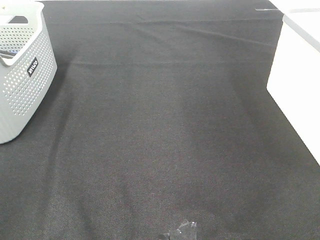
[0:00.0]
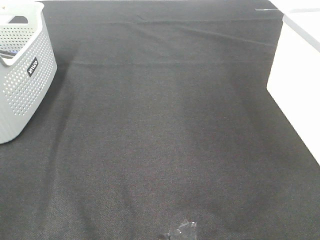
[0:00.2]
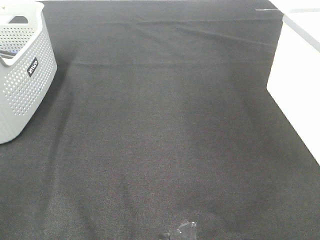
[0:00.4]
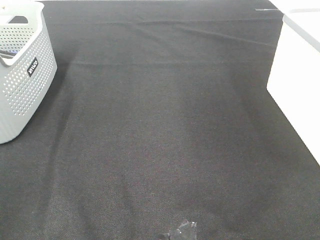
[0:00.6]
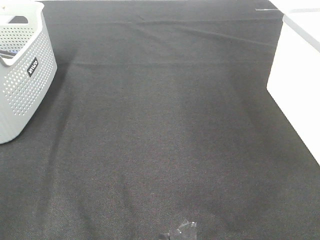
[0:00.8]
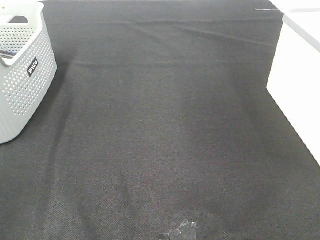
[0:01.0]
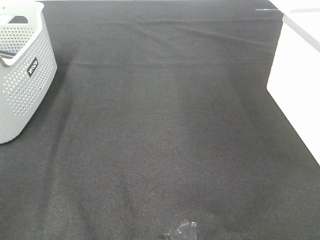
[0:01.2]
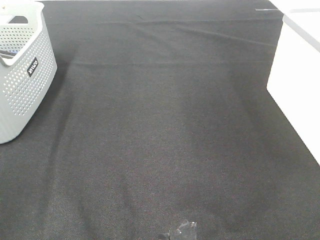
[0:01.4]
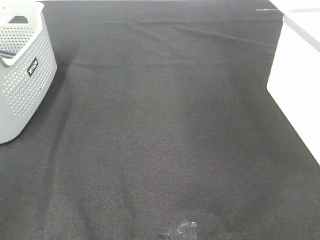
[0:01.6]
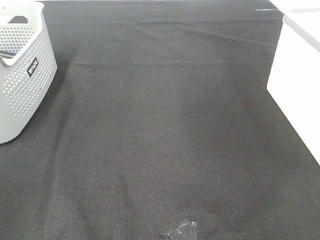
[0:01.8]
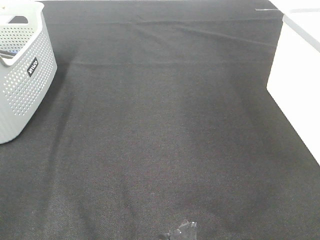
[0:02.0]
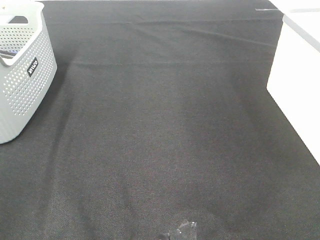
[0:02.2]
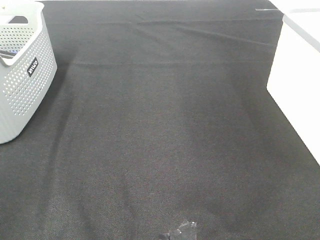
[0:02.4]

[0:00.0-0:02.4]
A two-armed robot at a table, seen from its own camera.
0:01.2 to 0:02.4: The two grippers keep their place.
